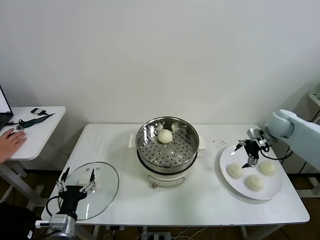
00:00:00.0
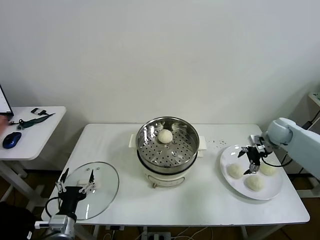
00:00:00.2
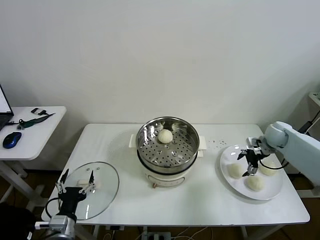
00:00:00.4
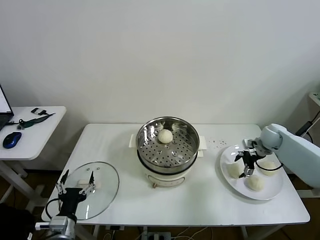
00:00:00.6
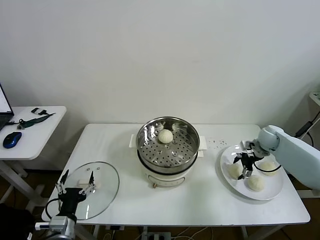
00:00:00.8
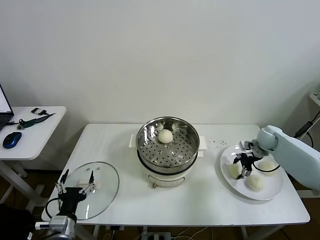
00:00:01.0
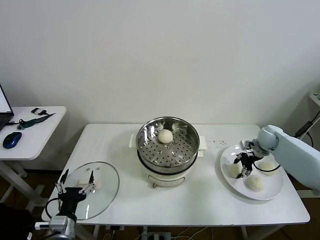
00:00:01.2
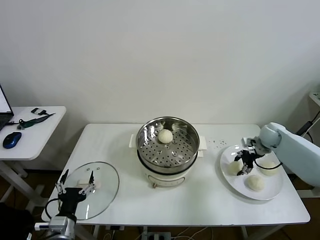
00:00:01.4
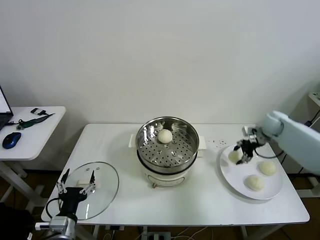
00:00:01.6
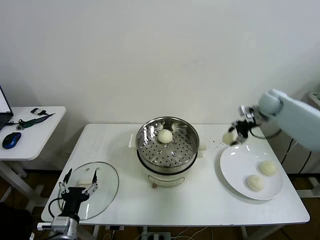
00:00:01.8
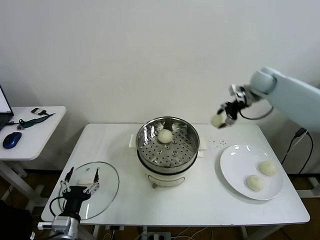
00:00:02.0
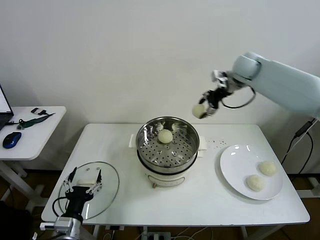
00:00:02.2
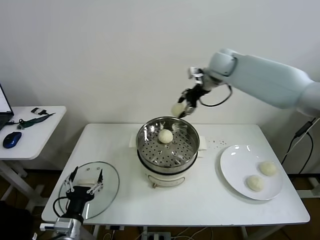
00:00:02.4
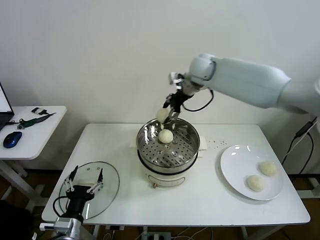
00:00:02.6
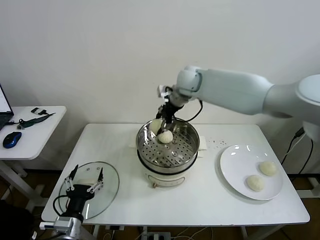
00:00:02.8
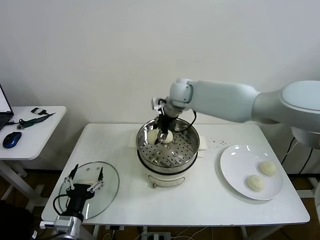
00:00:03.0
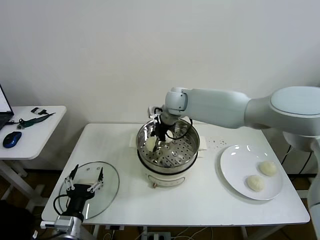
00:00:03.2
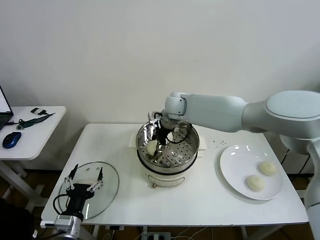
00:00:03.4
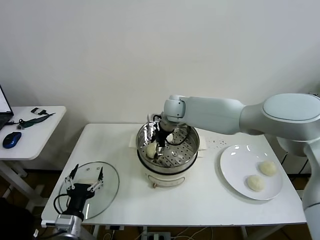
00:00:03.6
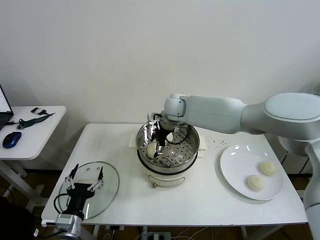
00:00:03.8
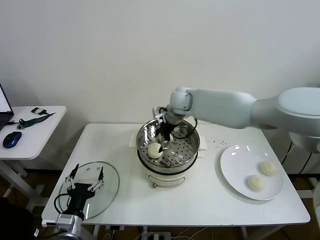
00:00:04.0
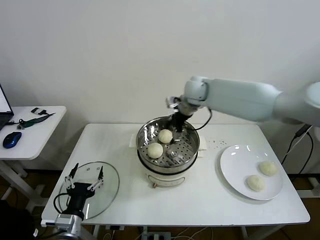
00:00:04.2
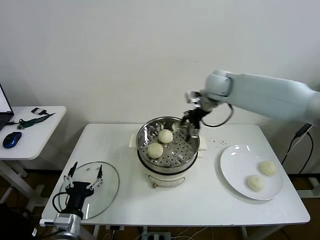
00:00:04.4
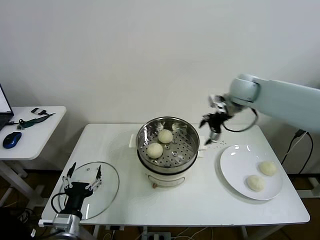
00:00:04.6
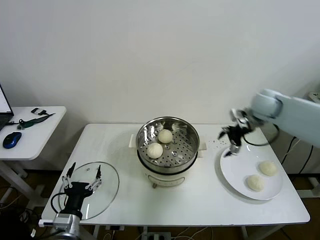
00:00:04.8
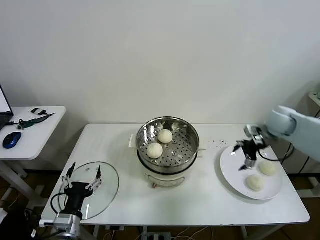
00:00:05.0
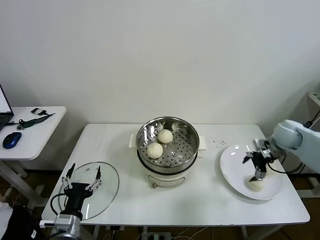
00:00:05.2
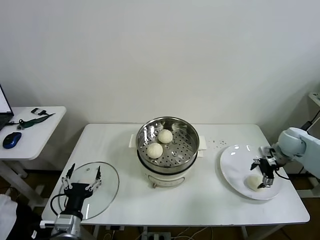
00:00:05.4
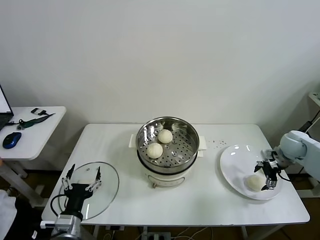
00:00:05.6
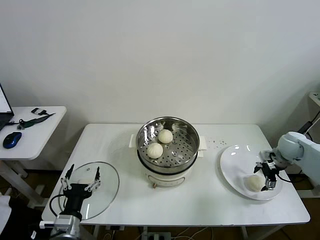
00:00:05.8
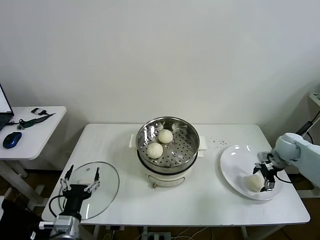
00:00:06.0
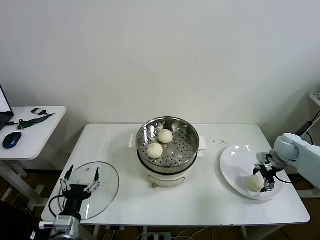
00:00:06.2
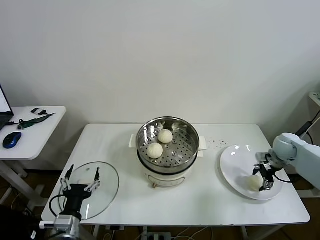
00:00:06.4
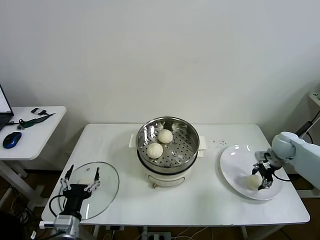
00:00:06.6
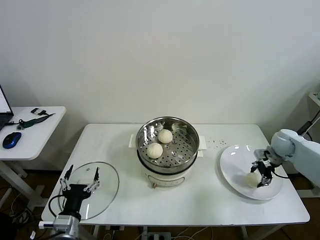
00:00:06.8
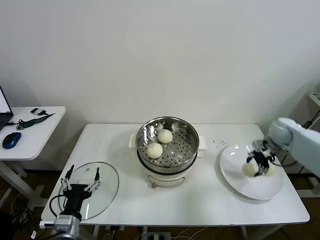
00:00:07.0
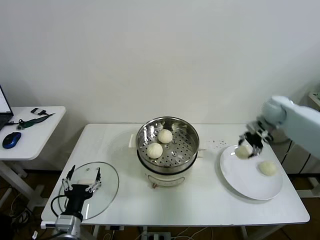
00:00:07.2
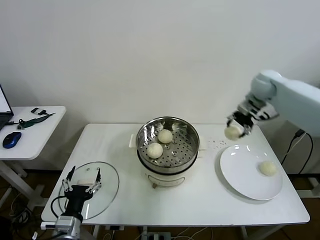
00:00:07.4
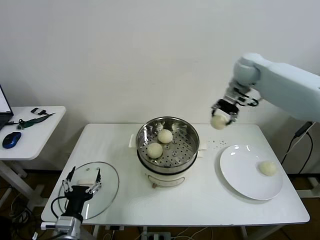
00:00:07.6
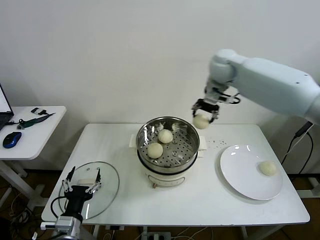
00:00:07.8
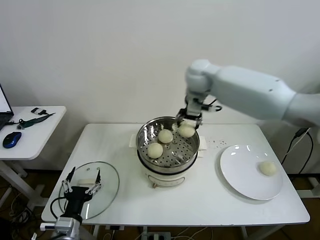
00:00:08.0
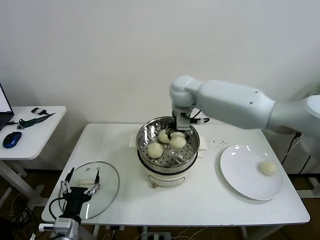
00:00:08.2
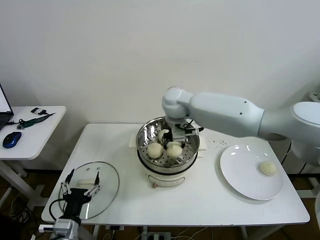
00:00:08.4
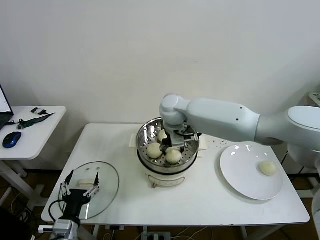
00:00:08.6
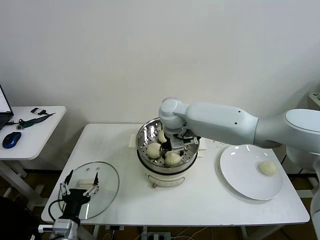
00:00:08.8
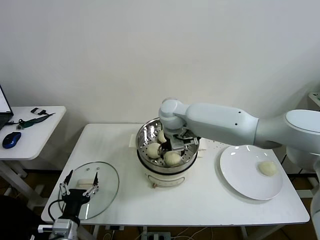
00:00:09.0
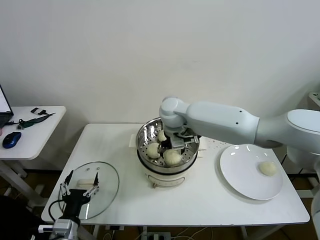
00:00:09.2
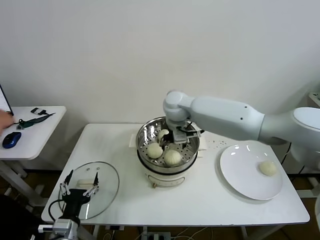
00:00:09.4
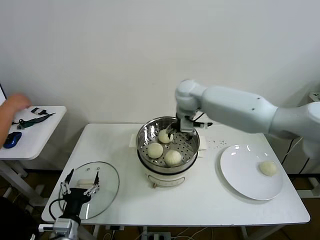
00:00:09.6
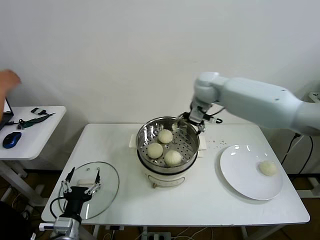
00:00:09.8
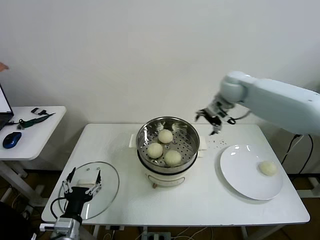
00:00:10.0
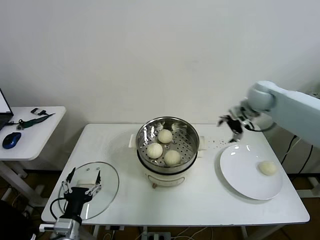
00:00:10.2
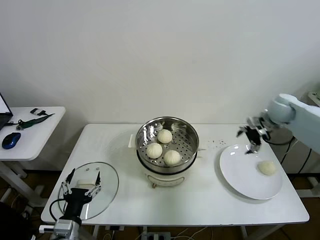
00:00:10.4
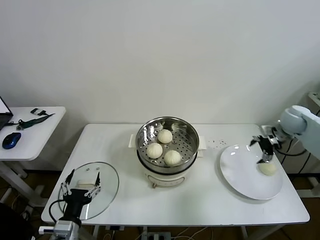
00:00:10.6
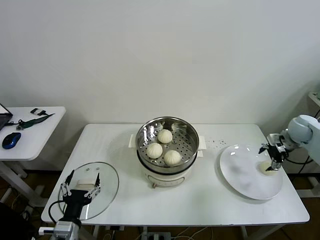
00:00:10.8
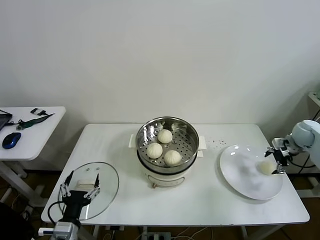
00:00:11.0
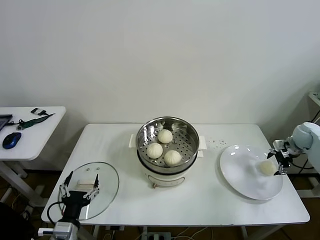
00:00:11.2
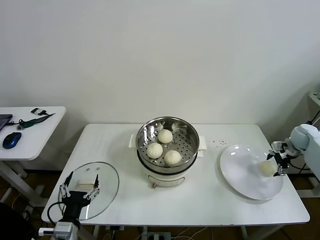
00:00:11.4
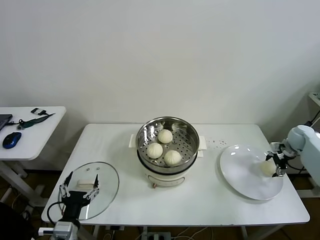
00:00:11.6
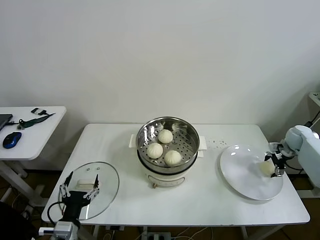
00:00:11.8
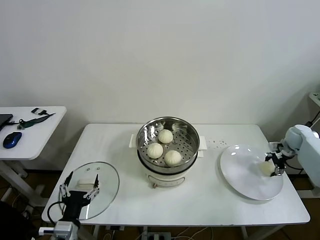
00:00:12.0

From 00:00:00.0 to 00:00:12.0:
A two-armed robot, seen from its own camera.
Task of the whole recording: take steamed baozi put them in steamer then cover it.
Step, from 00:00:01.2 to 00:00:03.6: Place the baozi on the steamer with right gripper.
Step, from 00:00:03.8 to 00:00:06.2: Grasp the baozi in the plate with right gripper.
Step, from 00:00:06.6 to 00:00:09.0: Place the baozi on the steamer with right gripper.
Step, from 00:00:09.2 to 00:00:11.8: Grasp the baozi in the plate with right gripper.
From 00:00:00.0 to 00:00:01.6: The right gripper goes downward and returns, approximately 10 cm each way, and closes up.
From 00:00:01.6 to 00:00:03.0: The right gripper goes about 35 cm to the left.
From 00:00:03.0 to 00:00:04.4: The right gripper heads to the right, covering roughly 15 cm, and opens up.
From 00:00:04.4 to 00:00:06.0: The right gripper shifts some 35 cm to the right and downward.
From 00:00:06.0 to 00:00:07.6: The right gripper is displaced upward, to the left and forward by roughly 35 cm, and closes its fingers.
From 00:00:07.6 to 00:00:09.0: The right gripper shifts about 25 cm to the left and downward, and opens its fingers.
From 00:00:09.0 to 00:00:10.4: The right gripper goes about 40 cm to the right.
From 00:00:10.4 to 00:00:12.0: The right gripper is displaced downward and to the right by some 20 cm, and closes.

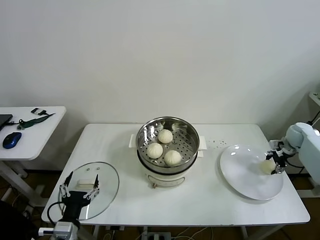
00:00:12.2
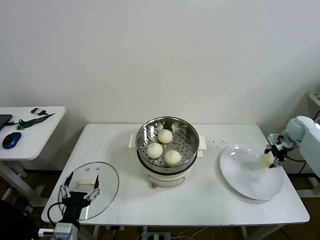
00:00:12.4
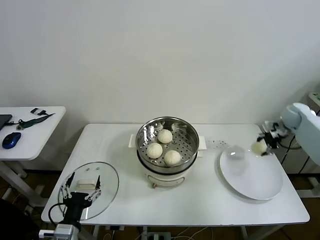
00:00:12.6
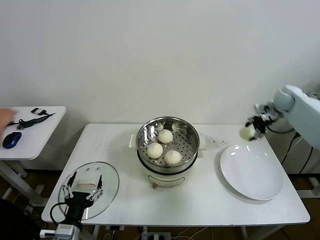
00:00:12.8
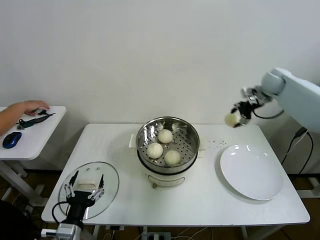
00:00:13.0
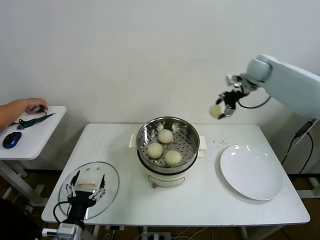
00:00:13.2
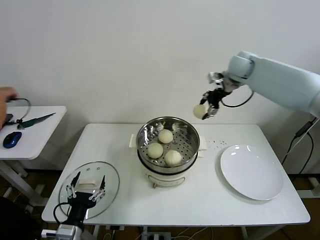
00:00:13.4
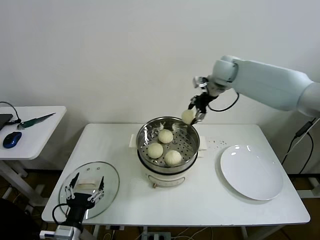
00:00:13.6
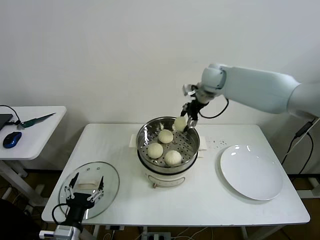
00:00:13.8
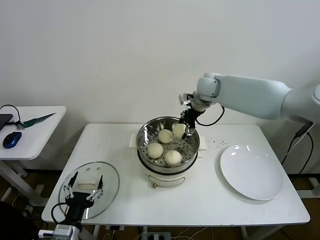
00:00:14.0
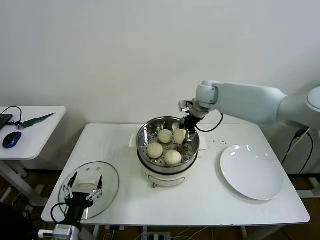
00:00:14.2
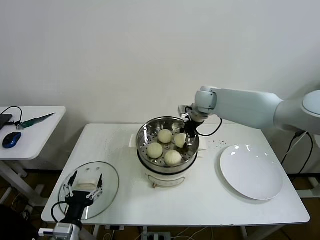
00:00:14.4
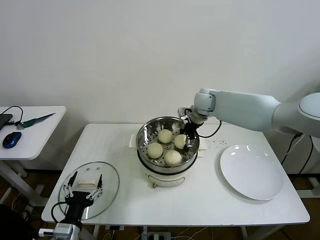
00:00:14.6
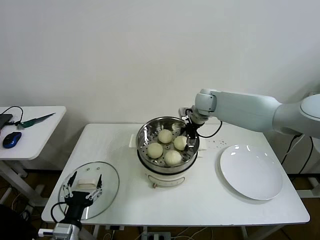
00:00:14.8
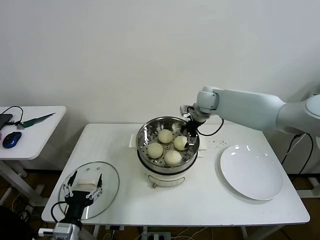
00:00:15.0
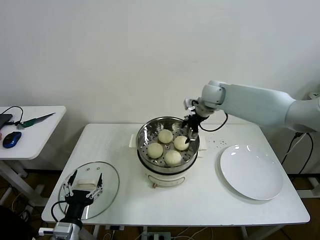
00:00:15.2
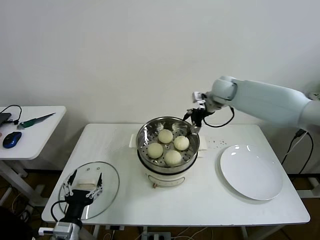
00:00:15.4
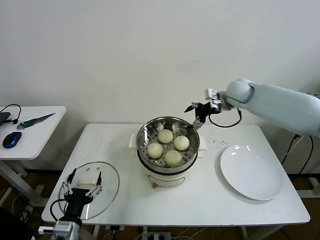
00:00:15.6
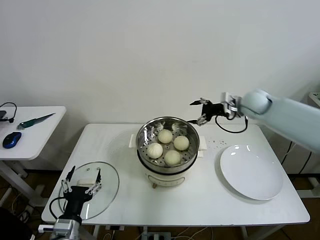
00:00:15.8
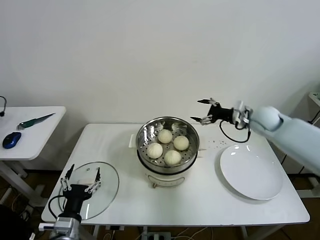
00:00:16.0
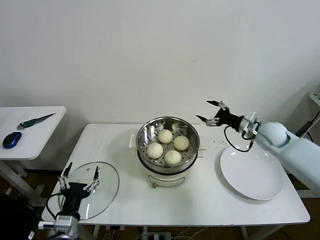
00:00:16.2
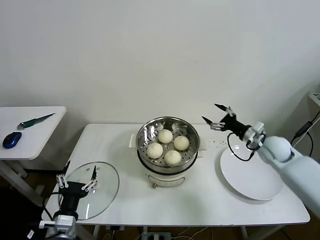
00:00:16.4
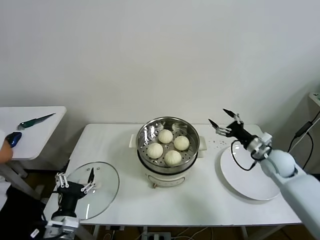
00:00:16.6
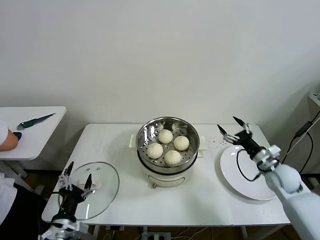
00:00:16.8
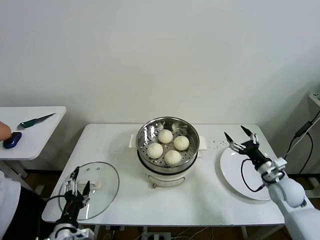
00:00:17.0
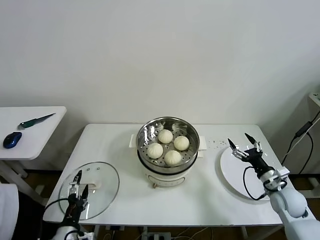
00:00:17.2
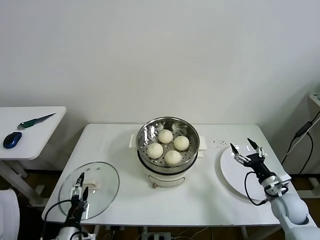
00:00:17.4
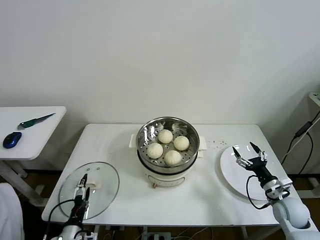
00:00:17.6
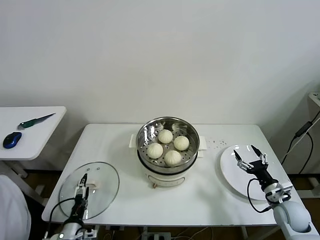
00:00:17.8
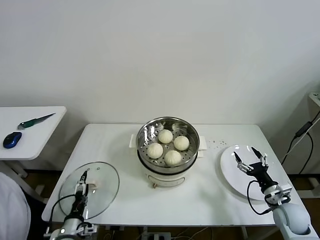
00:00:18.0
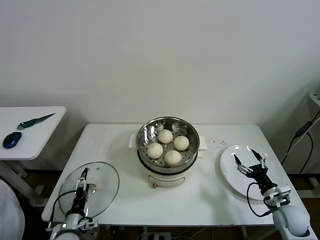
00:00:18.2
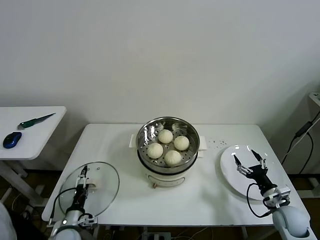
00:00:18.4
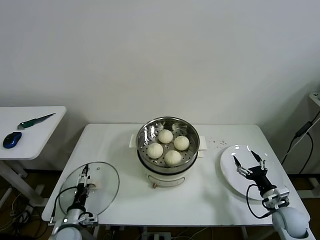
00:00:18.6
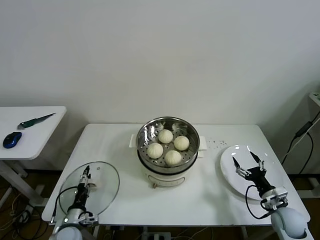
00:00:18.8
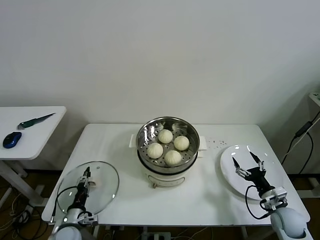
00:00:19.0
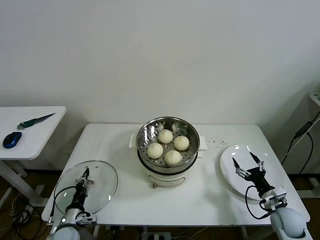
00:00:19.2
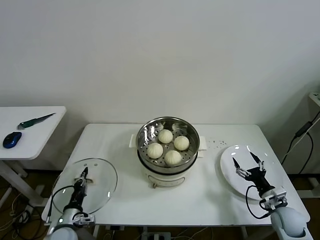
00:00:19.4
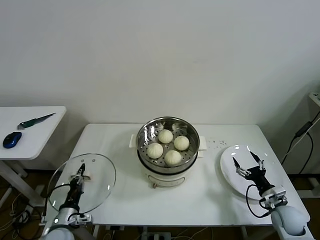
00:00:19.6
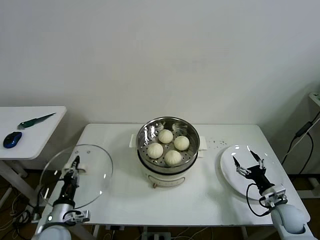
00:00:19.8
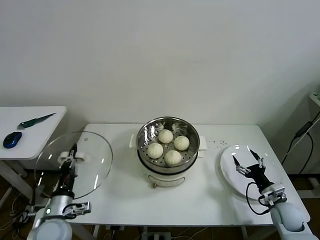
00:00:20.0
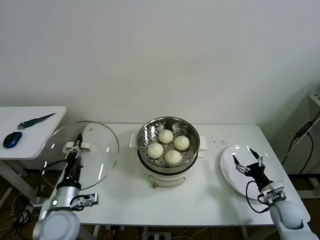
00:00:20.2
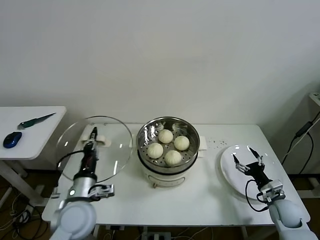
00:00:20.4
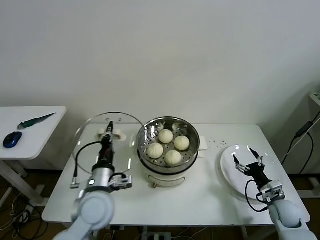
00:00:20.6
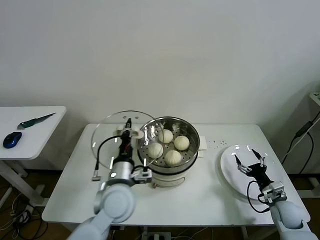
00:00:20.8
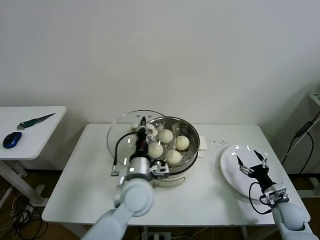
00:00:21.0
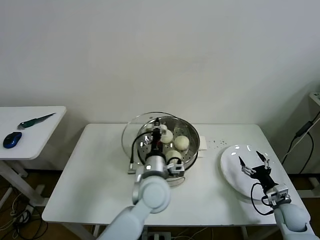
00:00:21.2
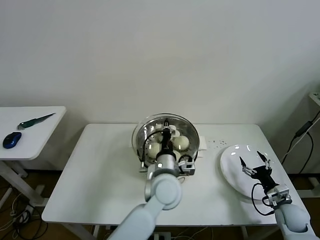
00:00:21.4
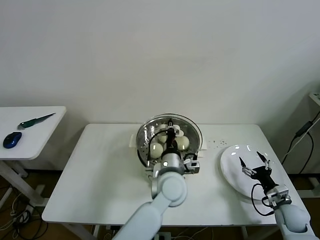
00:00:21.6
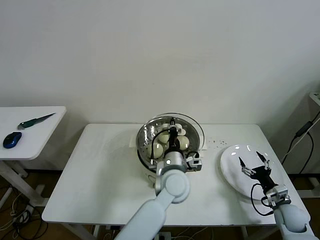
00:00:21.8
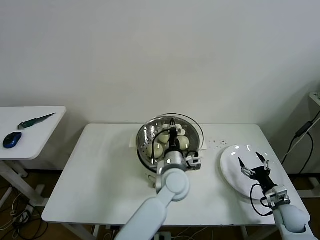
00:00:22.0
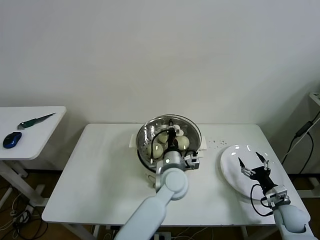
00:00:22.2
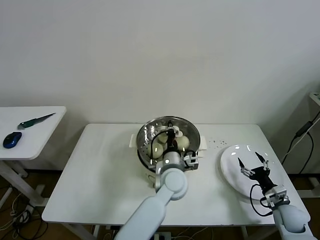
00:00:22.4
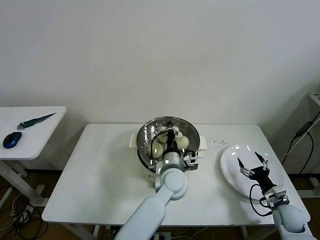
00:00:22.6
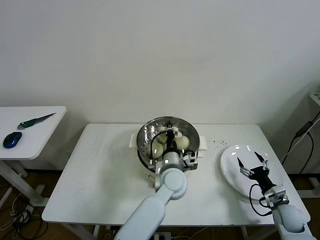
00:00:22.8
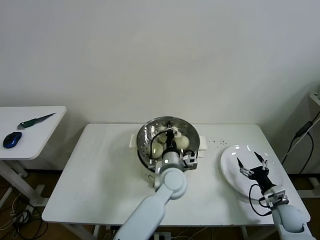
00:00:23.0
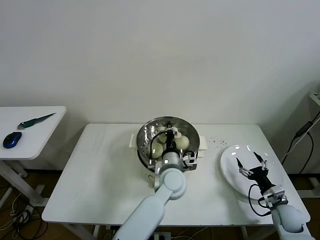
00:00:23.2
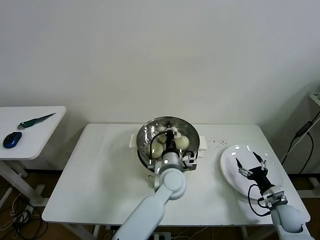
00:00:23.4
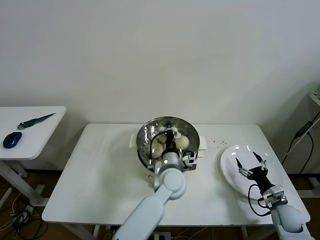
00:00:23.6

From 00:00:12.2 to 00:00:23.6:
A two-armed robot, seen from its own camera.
Task of the whole recording: take steamed baozi put them in steamer then cover it.
Step, from 00:00:12.2 to 00:00:14.6: Place the baozi on the steamer with right gripper.
Step, from 00:00:15.0 to 00:00:19.2: Grasp the pot lid with left gripper.
From 00:00:12.2 to 00:00:13.6: The right gripper travels to the left and upward by roughly 40 cm.
From 00:00:13.6 to 00:00:15.0: The right gripper heads downward, covering approximately 10 cm, and opens its fingers.
From 00:00:15.0 to 00:00:16.4: The right gripper moves to the right, backward and downward, roughly 30 cm.
From 00:00:16.4 to 00:00:17.8: The left gripper shifts about 10 cm downward; the right gripper moves backward and downward, approximately 20 cm.
From 00:00:17.8 to 00:00:19.4: The left gripper is displaced forward by approximately 5 cm, and closes its fingers.
From 00:00:19.4 to 00:00:20.8: The left gripper goes roughly 30 cm upward and to the right.
From 00:00:20.8 to 00:00:22.2: The left gripper shifts approximately 20 cm to the right and forward.
From 00:00:22.2 to 00:00:23.6: The grippers move only a little.
